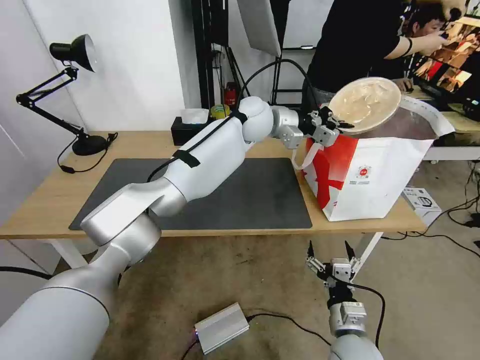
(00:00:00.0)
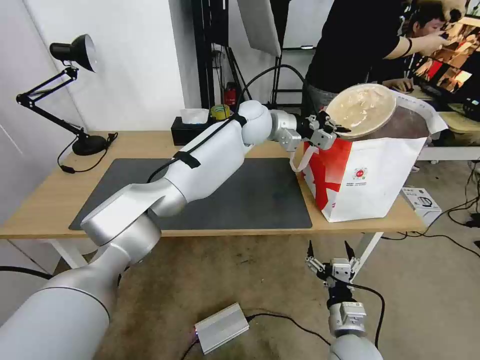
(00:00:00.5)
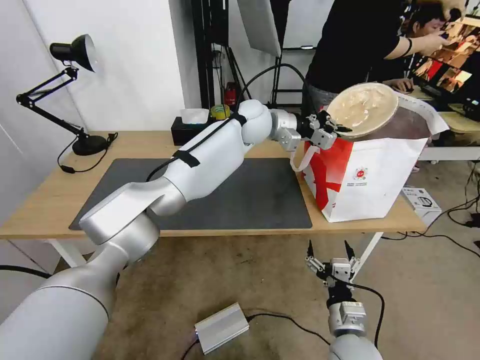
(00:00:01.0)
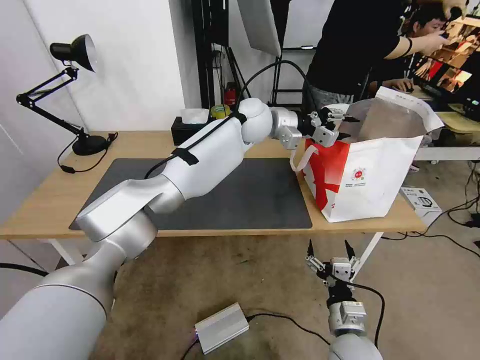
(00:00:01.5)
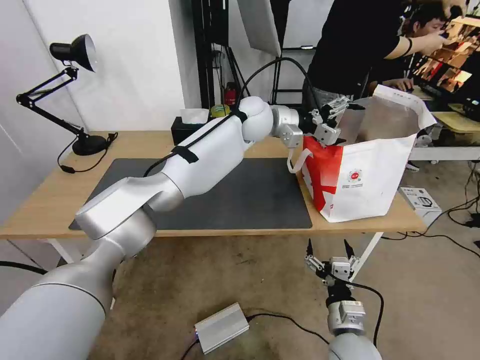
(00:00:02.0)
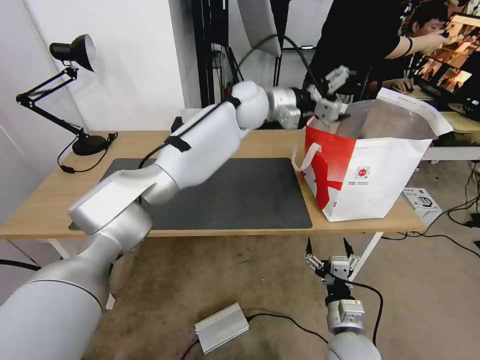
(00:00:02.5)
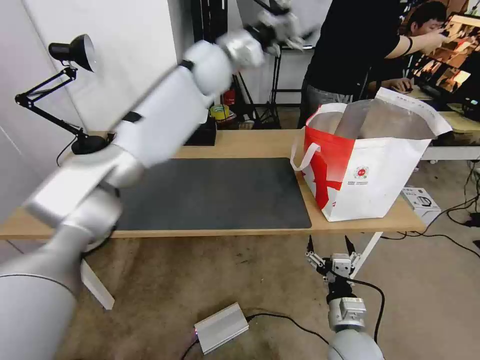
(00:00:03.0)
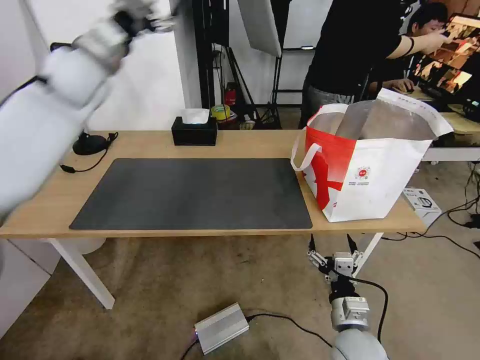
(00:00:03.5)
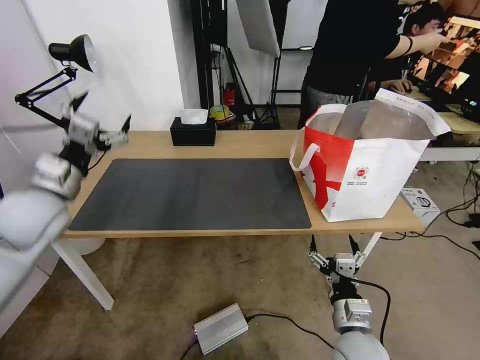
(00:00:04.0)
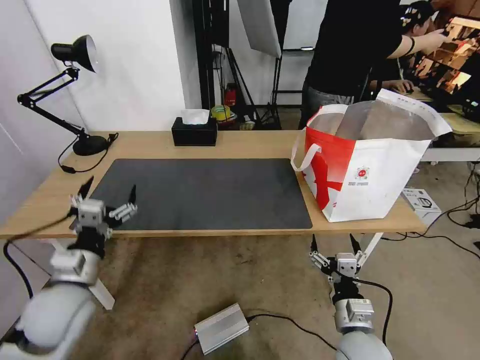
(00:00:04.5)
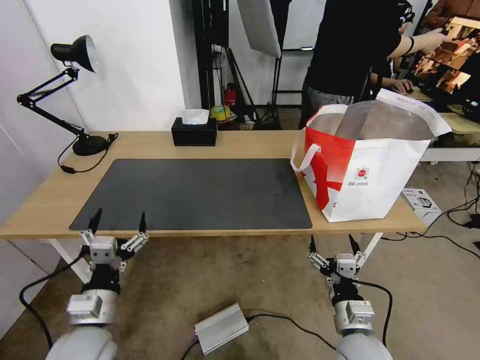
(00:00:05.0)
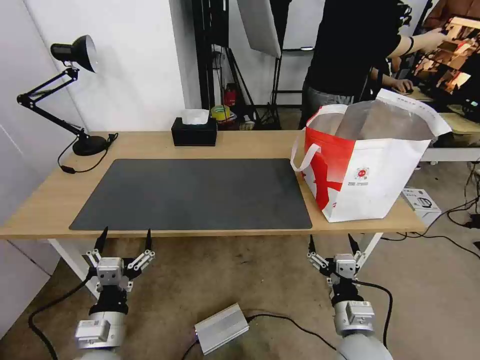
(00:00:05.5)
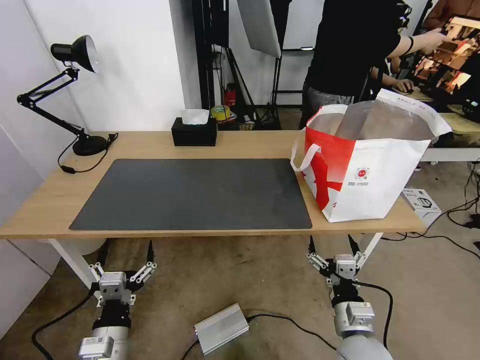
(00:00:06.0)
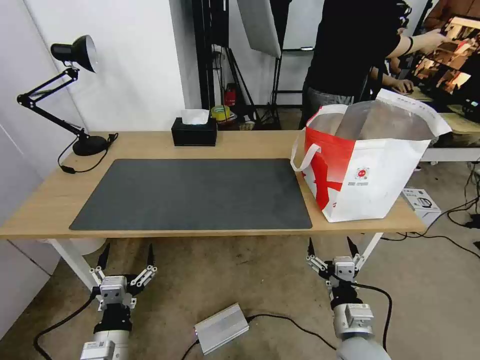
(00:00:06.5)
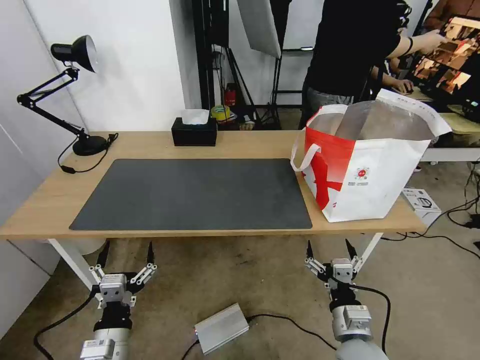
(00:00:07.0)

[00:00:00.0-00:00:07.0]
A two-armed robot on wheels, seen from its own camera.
Task of the whole recording: Pick up the trash from the table and place it into the takeout bag.
00:00:00.0 to 00:00:02.0: The left gripper opens its fingers.
00:00:02.0 to 00:00:03.5: The left gripper heads to the left, covering roughly 35 cm.
00:00:03.5 to 00:00:05.0: The left gripper moves backward and downward, some 50 cm.
00:00:05.0 to 00:00:07.0: The left gripper travels downward and backward by roughly 10 cm.
